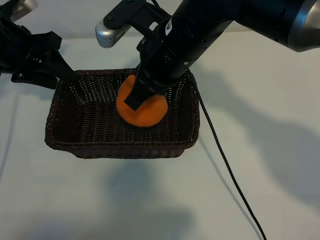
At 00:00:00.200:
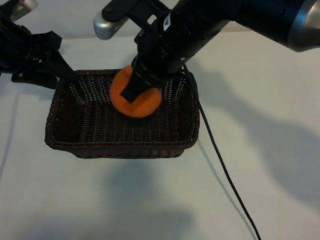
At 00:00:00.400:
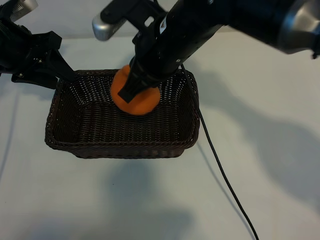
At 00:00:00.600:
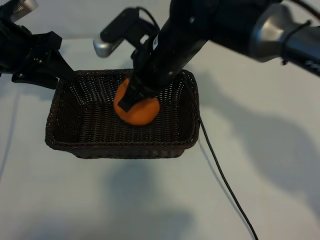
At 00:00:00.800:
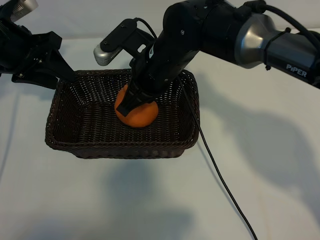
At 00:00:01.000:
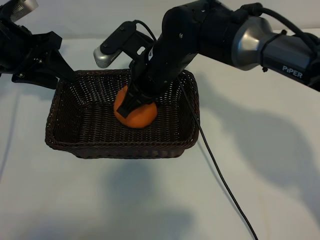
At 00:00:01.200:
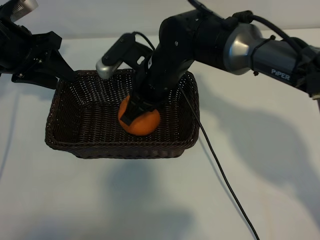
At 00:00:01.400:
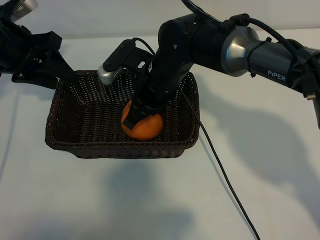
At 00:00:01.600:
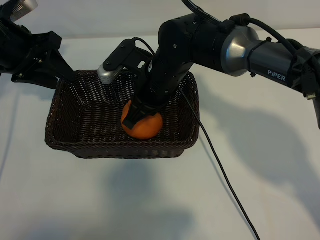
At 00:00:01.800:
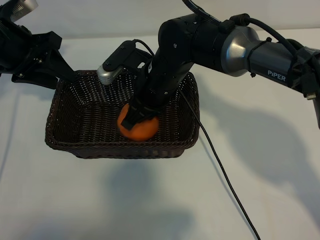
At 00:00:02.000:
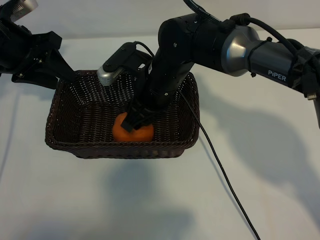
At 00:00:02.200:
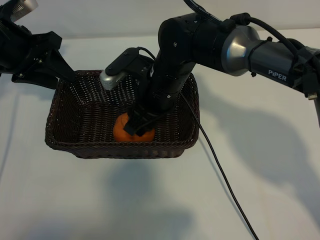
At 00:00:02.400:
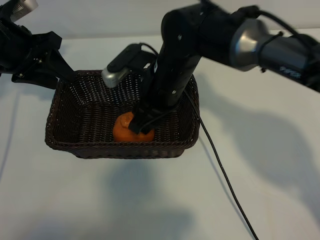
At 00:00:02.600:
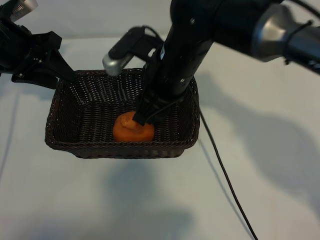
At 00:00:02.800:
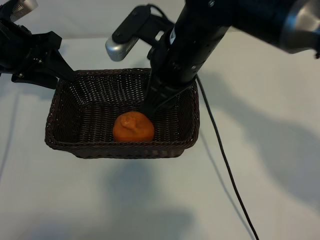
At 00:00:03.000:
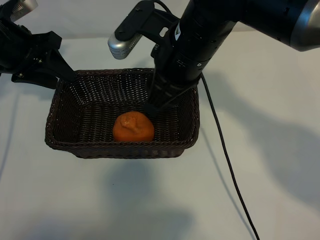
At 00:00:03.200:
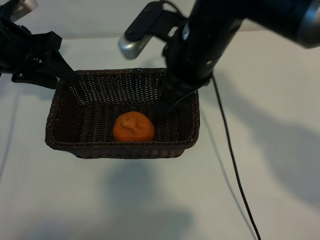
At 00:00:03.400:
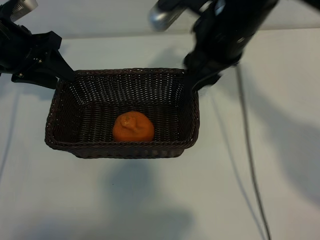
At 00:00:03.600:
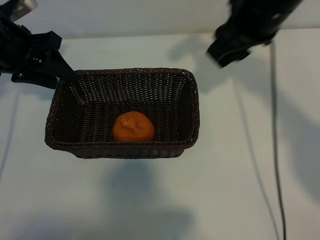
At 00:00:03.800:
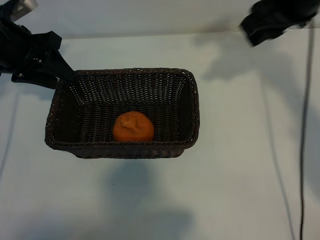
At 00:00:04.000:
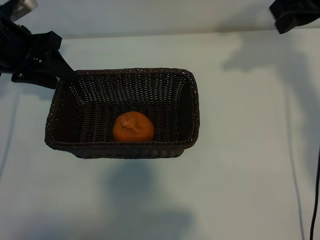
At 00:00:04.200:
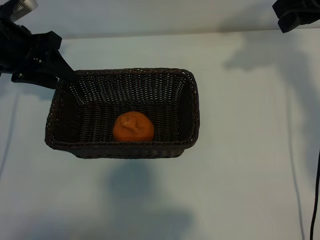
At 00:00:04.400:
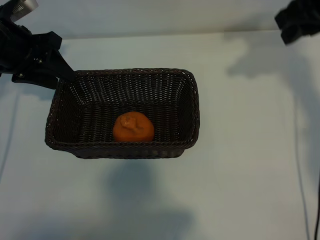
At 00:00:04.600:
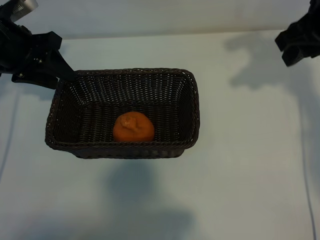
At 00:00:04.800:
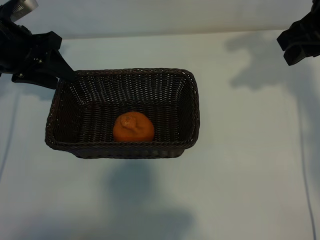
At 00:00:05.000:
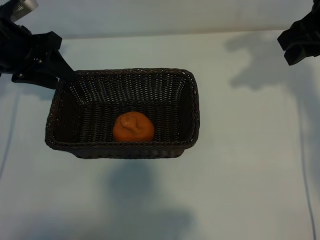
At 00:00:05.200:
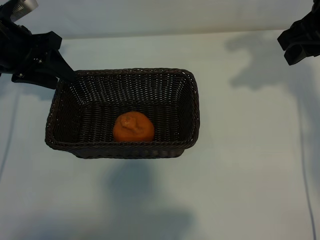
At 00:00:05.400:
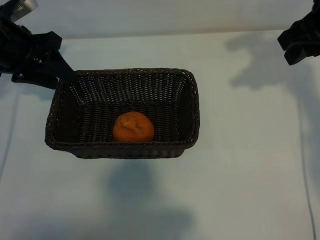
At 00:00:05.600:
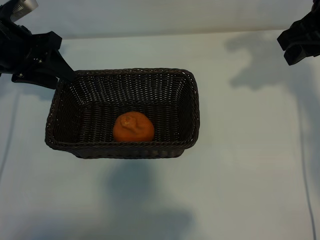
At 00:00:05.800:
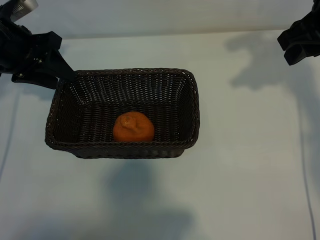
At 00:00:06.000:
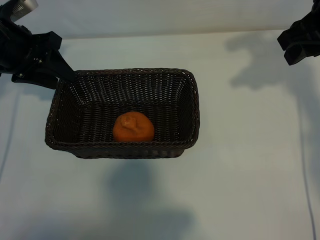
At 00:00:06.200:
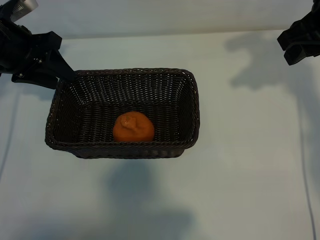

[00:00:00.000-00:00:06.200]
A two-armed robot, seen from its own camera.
Task of the whole recording: pick up the orange and put it into the basket.
Step, 00:00:00.000 to 00:00:02.000: Place the orange in the basket with right gripper.

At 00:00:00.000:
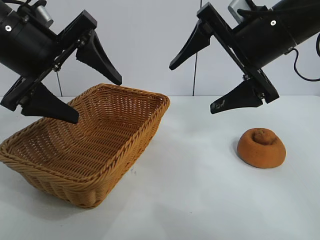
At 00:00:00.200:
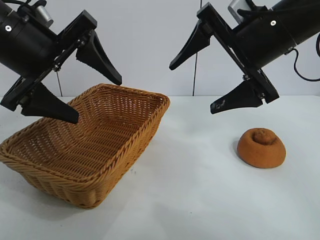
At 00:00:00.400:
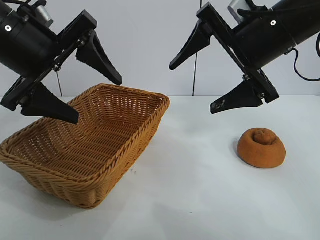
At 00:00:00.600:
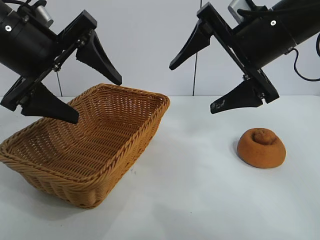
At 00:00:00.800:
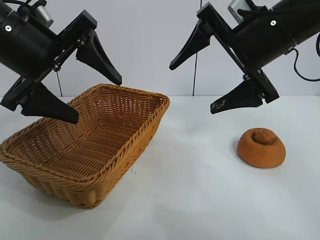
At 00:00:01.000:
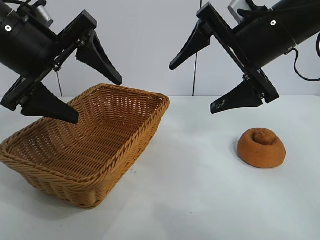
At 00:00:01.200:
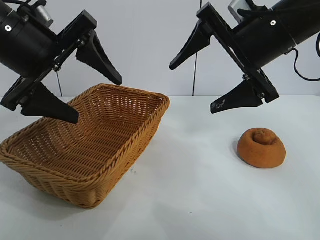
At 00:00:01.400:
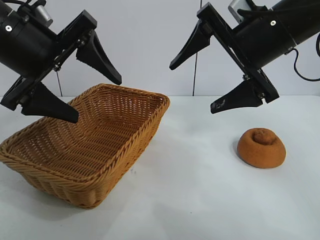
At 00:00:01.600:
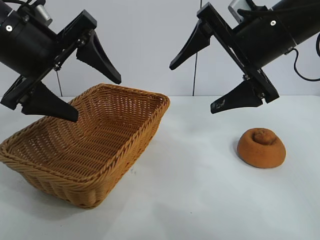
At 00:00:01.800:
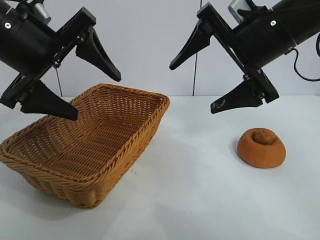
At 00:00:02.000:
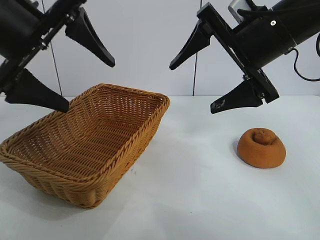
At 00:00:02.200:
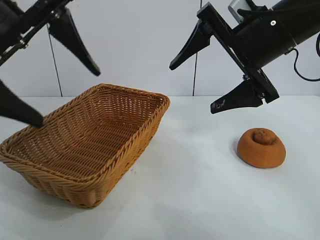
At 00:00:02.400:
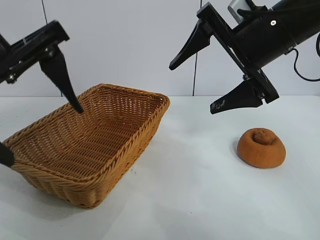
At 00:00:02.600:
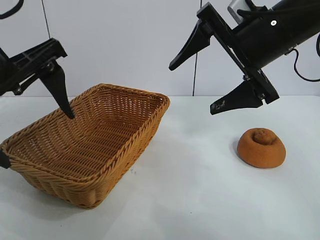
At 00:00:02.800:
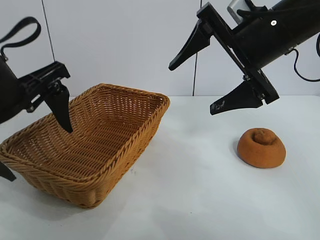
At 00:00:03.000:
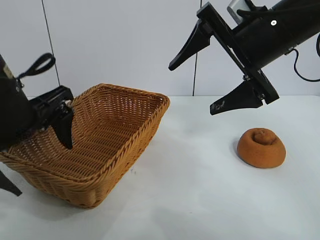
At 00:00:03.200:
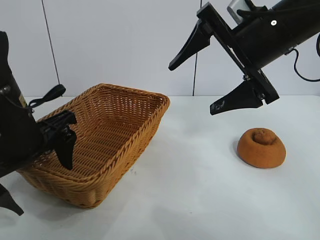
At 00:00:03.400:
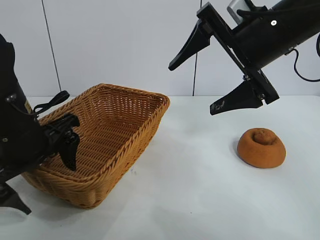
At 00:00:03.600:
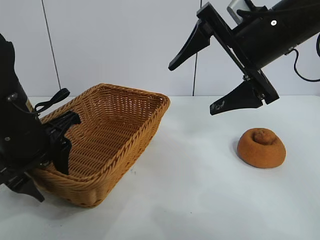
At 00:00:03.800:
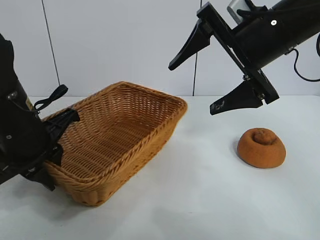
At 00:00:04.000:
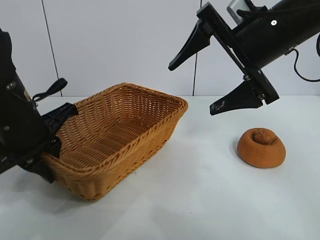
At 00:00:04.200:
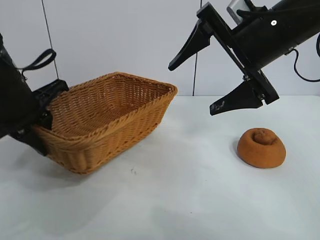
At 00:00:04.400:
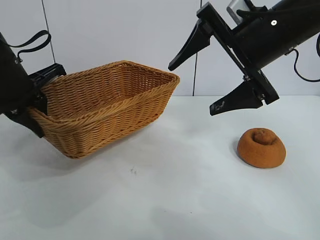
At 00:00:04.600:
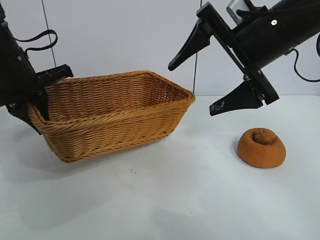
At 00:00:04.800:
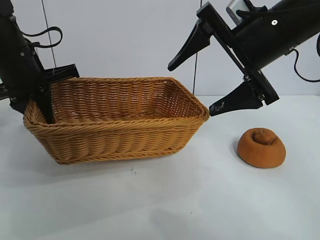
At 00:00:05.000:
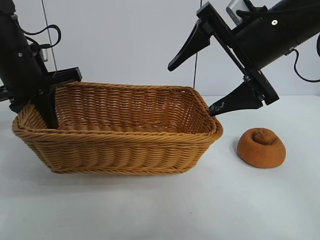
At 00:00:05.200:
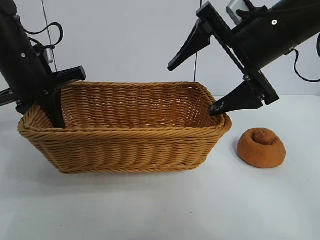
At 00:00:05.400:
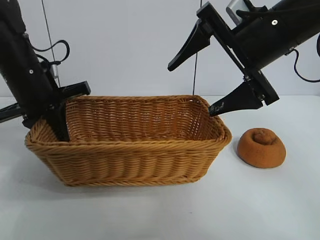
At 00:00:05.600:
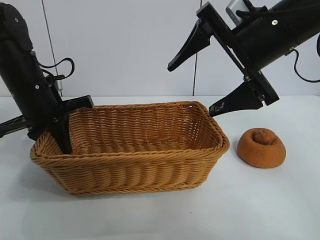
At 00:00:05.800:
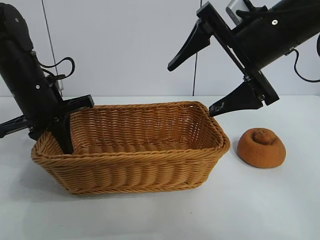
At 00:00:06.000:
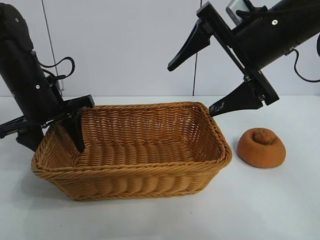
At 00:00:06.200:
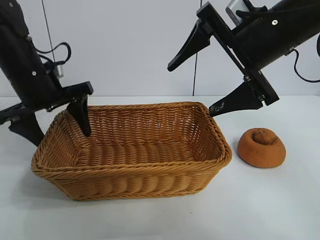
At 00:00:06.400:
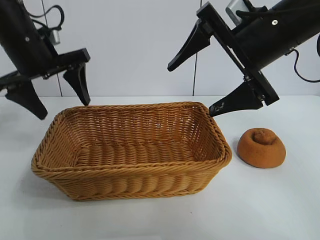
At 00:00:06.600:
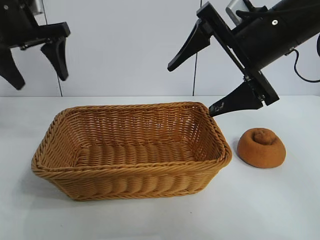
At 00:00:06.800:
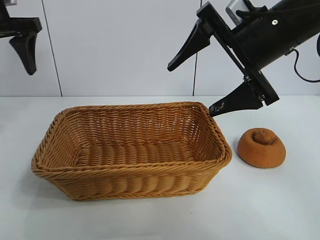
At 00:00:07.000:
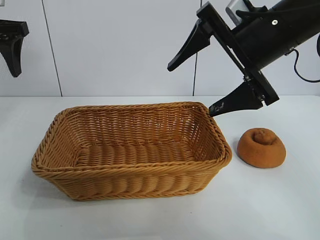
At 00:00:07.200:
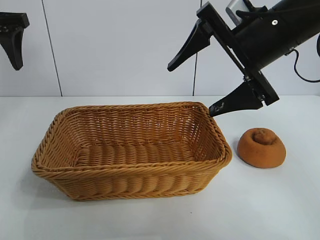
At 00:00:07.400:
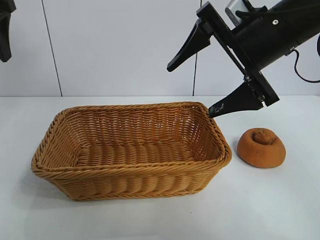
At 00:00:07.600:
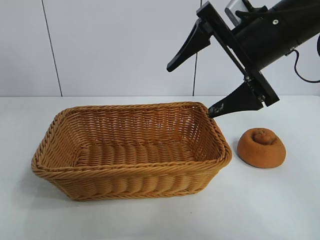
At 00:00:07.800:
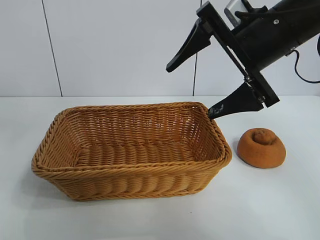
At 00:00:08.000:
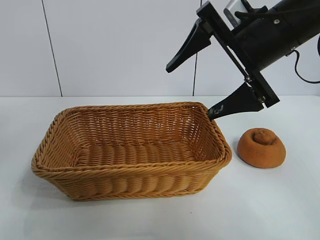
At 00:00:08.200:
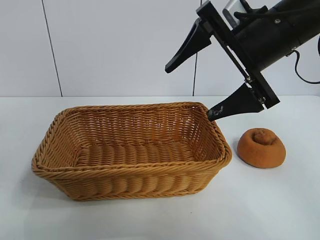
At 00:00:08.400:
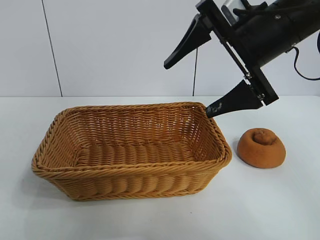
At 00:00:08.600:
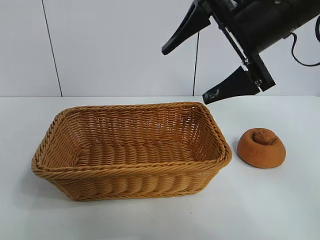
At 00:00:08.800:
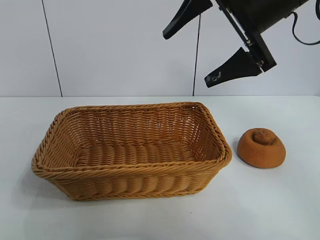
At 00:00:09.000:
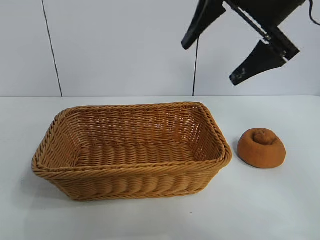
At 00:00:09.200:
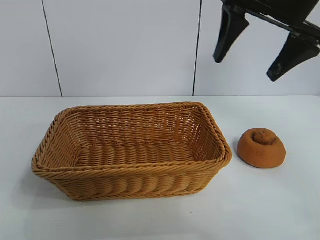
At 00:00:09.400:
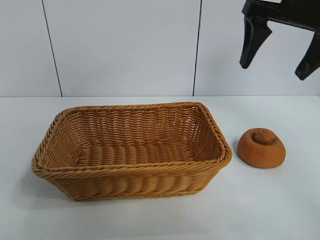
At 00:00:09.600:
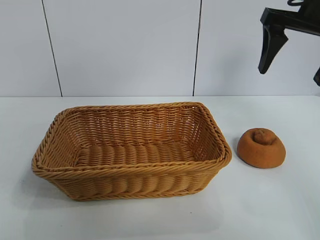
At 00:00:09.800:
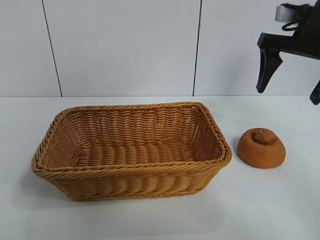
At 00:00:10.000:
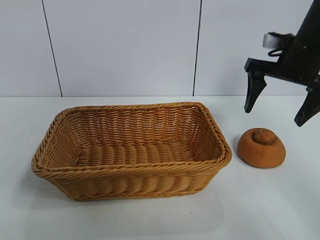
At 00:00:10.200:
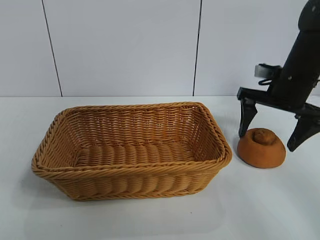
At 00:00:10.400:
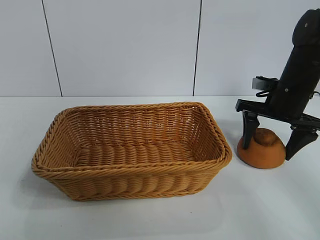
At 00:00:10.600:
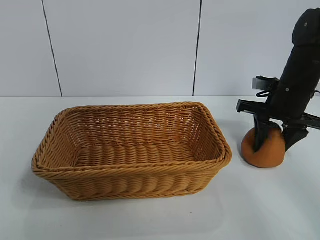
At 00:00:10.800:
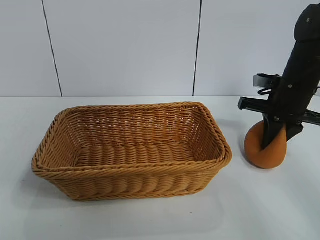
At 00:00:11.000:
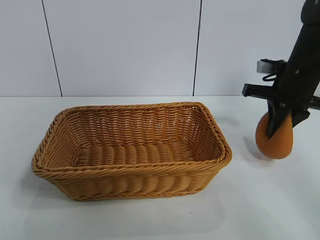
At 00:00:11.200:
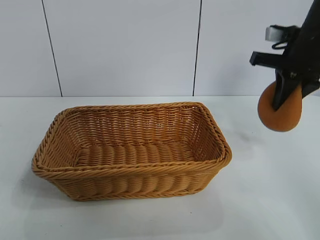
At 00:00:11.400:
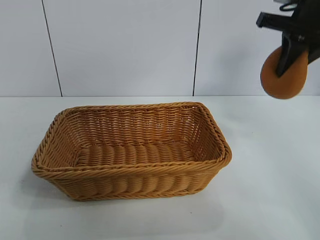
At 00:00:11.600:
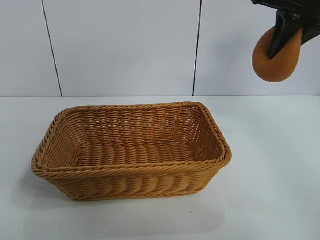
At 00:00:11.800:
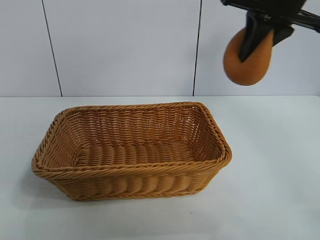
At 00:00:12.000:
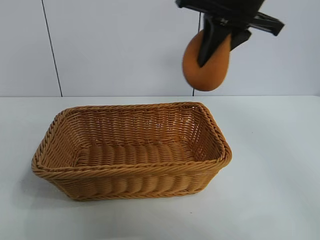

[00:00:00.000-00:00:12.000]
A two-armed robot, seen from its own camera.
Task of the whole recording: pick up the orange and put it into the basket.
Step, 00:00:01.800 to 00:00:03.600: Grasp the basket with left gripper.
Step, 00:00:04.000 to 00:00:06.200: Place the basket in the center of view with left gripper.
Step, 00:00:06.400 to 00:00:10.800: Grasp the orange with right gripper.

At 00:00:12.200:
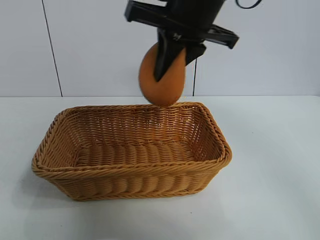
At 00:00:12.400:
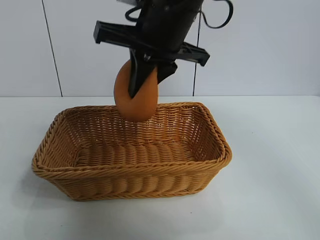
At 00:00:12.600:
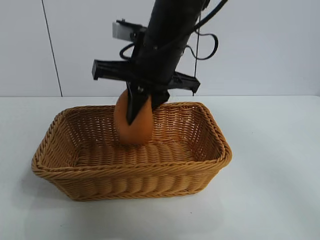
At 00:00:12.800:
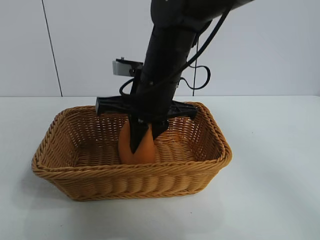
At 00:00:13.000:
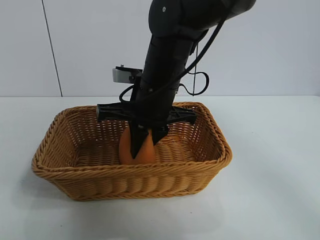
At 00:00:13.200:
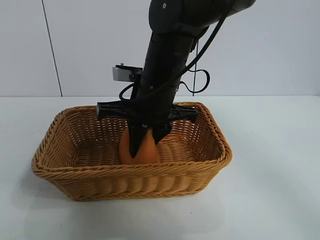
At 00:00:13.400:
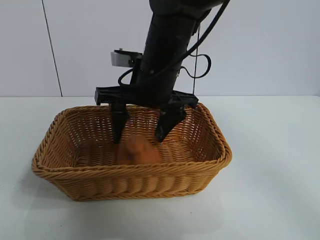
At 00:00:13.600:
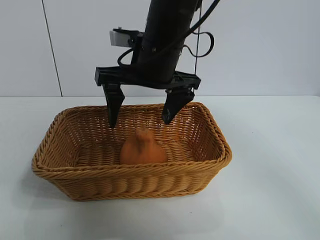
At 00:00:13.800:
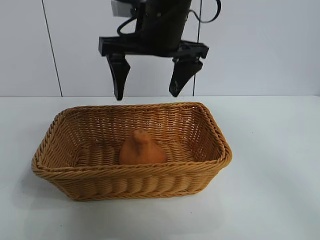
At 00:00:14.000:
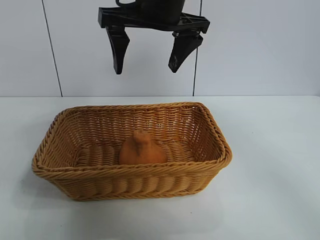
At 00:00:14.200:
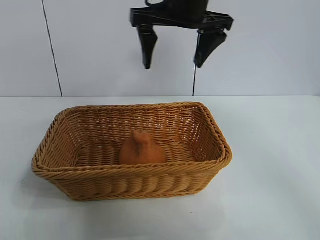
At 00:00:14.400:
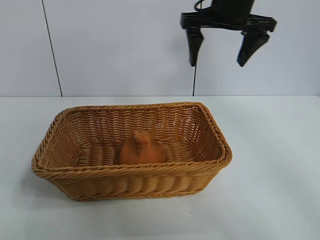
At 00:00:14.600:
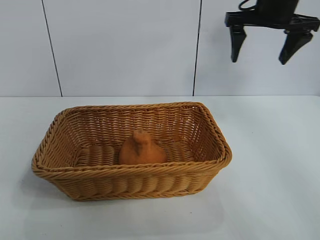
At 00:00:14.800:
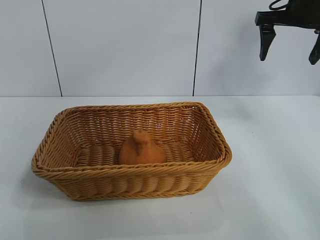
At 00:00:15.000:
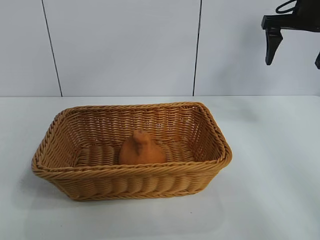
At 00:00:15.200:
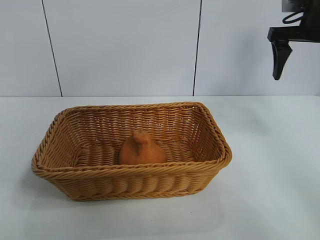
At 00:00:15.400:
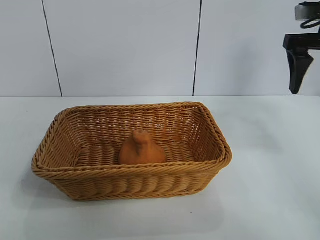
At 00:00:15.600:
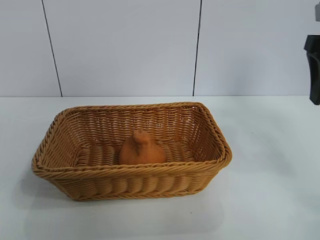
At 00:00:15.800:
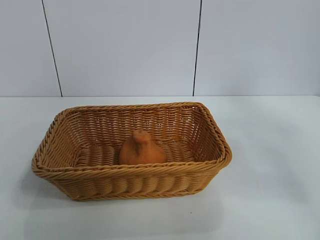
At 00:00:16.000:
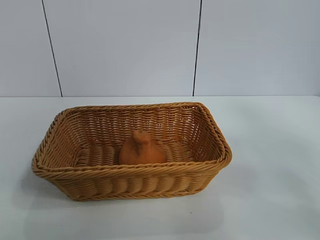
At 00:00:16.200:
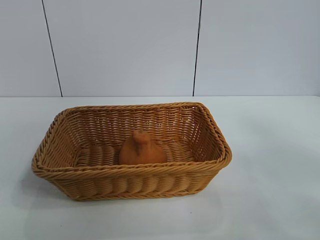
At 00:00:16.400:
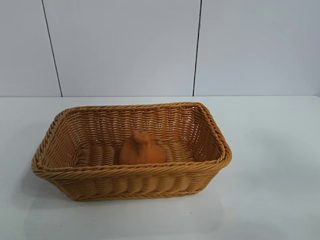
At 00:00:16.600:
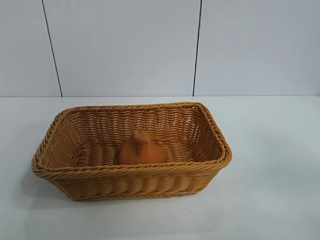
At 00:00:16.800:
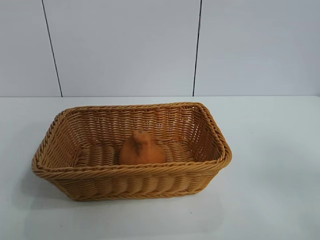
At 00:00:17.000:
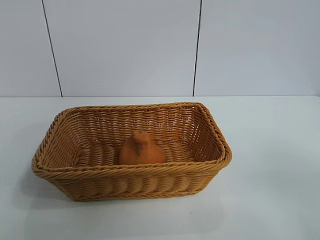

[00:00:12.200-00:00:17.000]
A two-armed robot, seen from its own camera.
Task of the whole recording: pick up the orange and put it into the basket.
Step, 00:00:12.200 to 00:00:13.400: Place the orange in the basket with right gripper.
